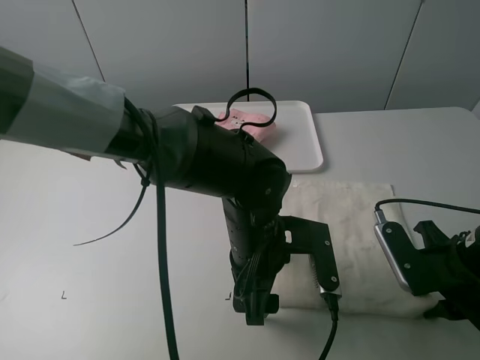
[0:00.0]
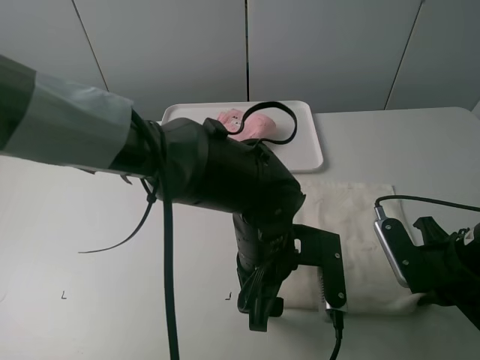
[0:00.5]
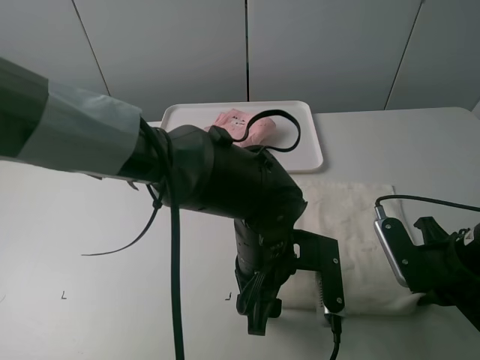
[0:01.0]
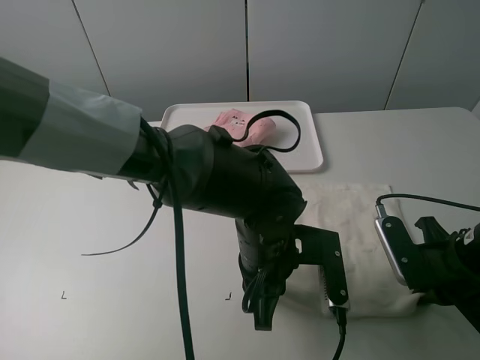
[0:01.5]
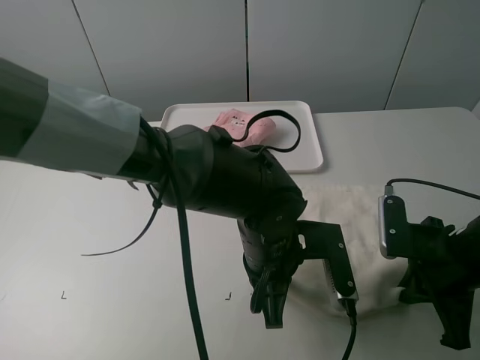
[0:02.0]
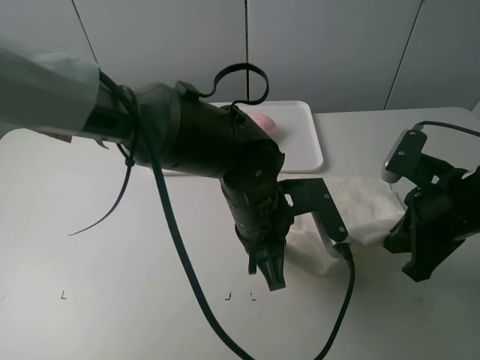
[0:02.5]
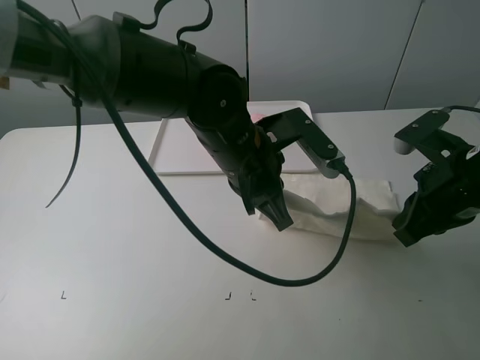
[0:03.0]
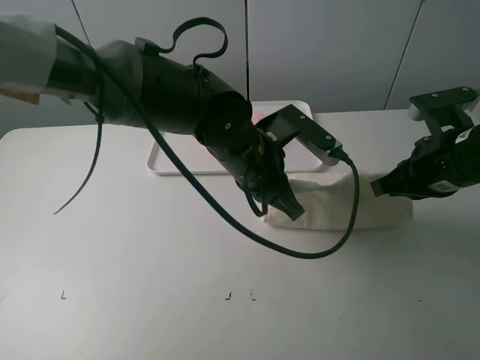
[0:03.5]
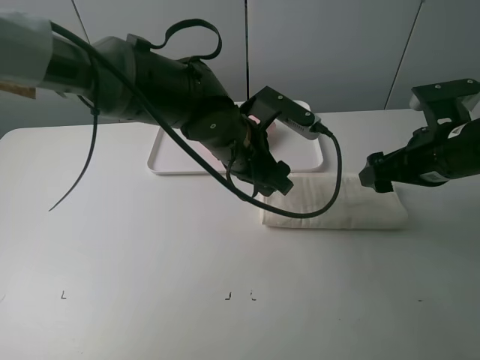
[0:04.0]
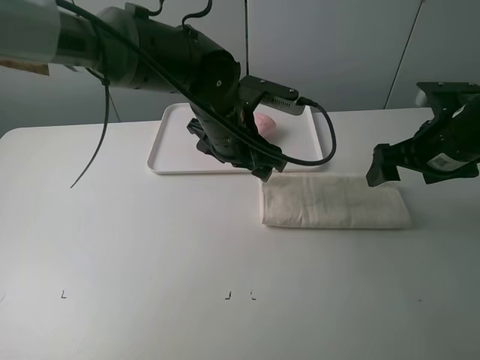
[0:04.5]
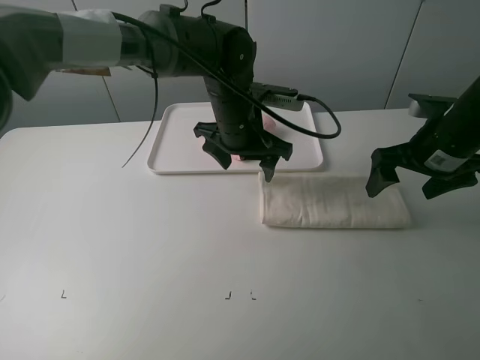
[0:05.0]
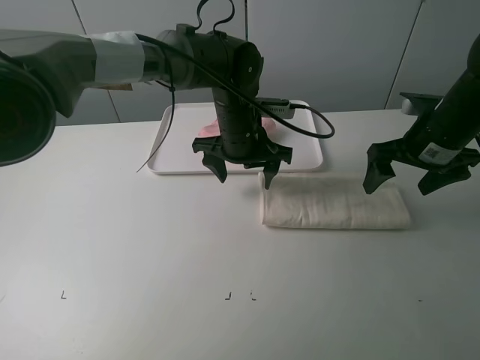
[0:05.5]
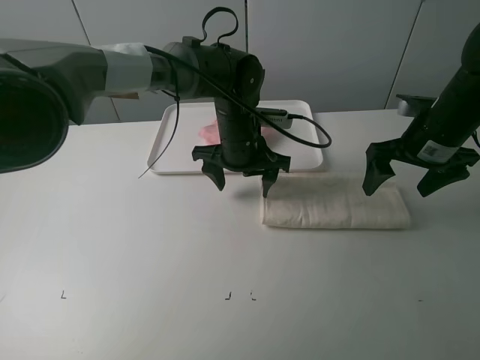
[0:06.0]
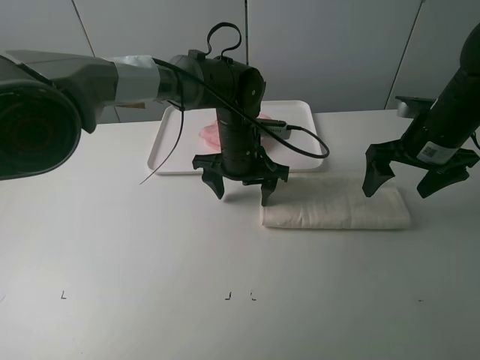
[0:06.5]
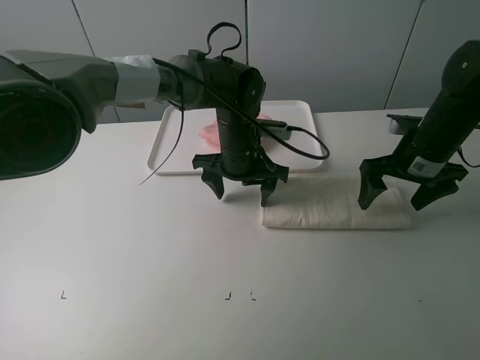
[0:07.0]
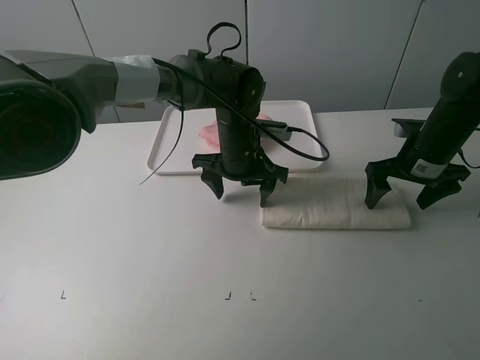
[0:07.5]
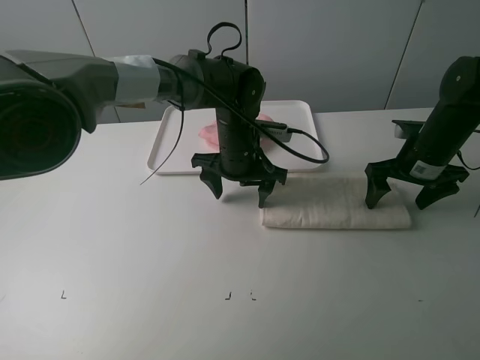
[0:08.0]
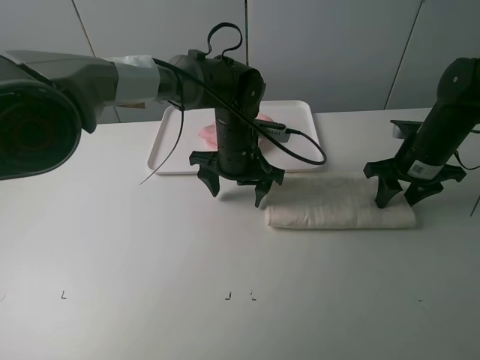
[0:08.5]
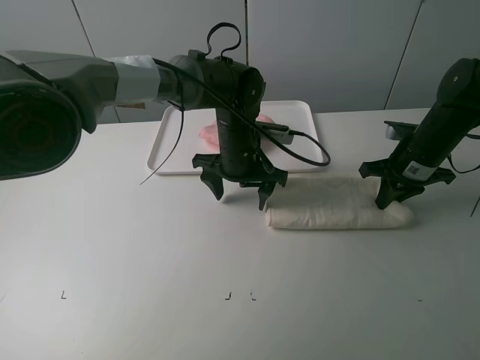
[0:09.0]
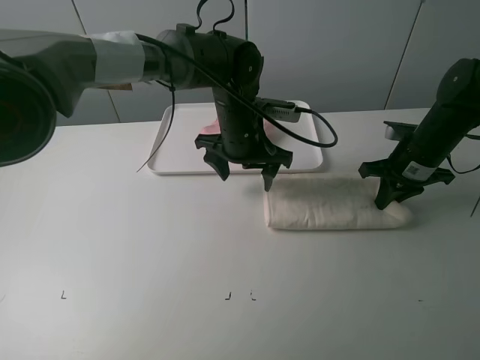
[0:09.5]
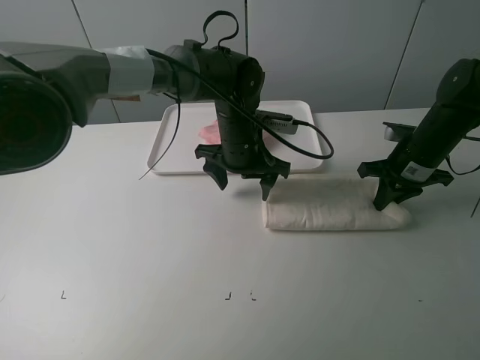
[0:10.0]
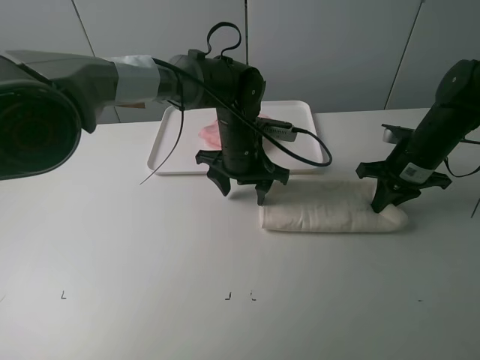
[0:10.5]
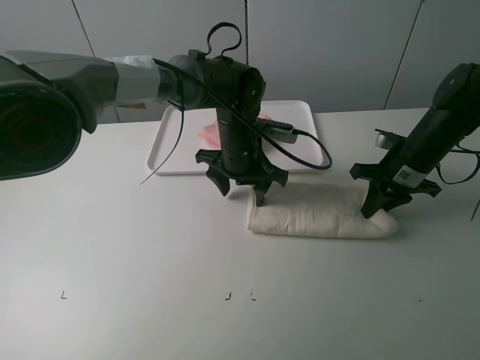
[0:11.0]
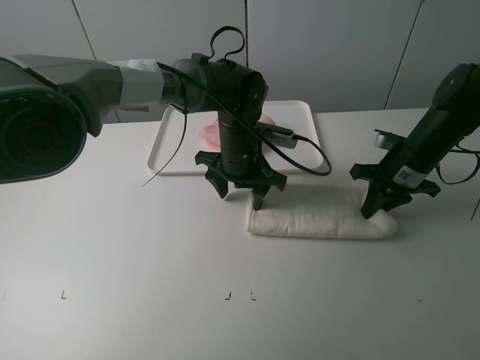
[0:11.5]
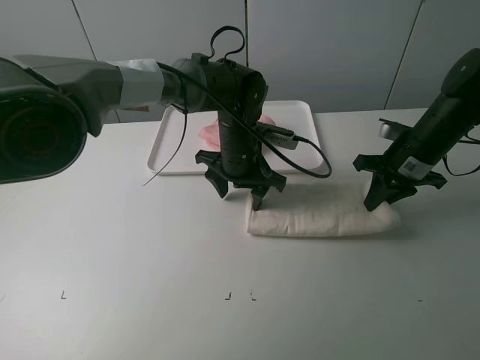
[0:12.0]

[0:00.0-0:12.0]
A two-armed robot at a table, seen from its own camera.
Task of the whole recording: fold one of the towels by two grippers and place it on the tray,then fold another towel by two grippers and place it on the folded towel.
Step, 0:02.0 to 0:04.0: Fold the white towel upwards with the left gripper.
Step, 0:04.5 to 0:06.0: Press the white towel with the left gripper.
Step, 0:06.5 to 0:08.5: Grasp the white towel with the right gripper.
0:00.0 to 0:02.0: The left gripper closes up.
0:02.0 to 0:04.0: Both grippers travel together forward and upward, about 10 cm. The right gripper opens up. The left gripper opens up.
0:04.0 to 0:06.0: The grippers both shift forward by some 5 cm.
0:06.0 to 0:08.0: The right gripper heads downward, covering some 5 cm.
0:08.0 to 0:10.0: The right gripper closes up.
0:10.0 to 0:12.0: The grippers make only small movements.

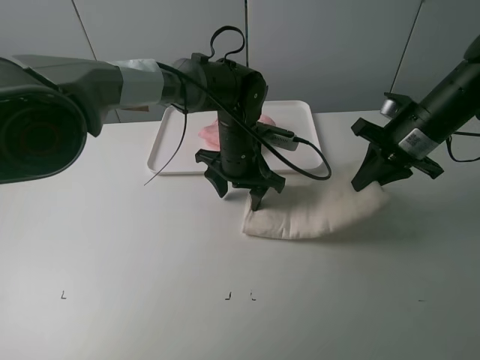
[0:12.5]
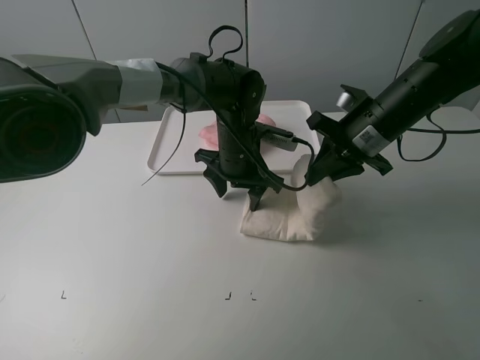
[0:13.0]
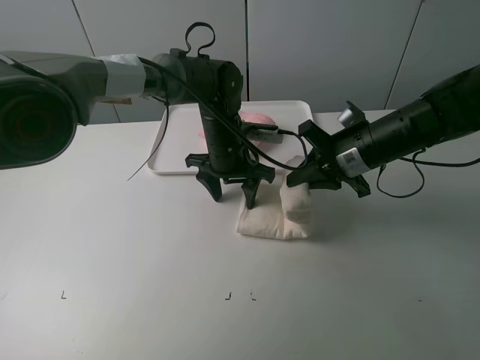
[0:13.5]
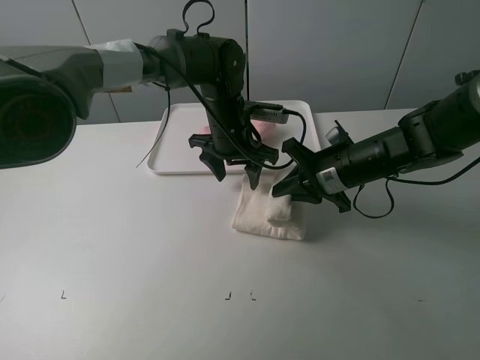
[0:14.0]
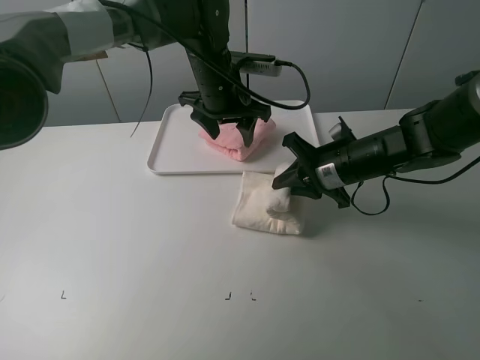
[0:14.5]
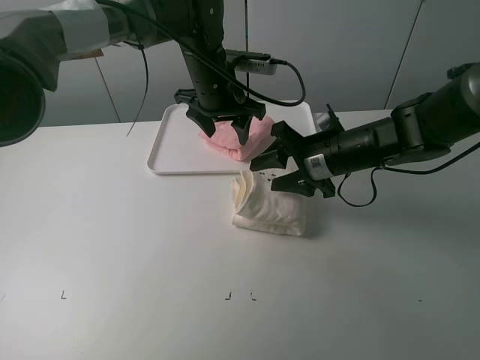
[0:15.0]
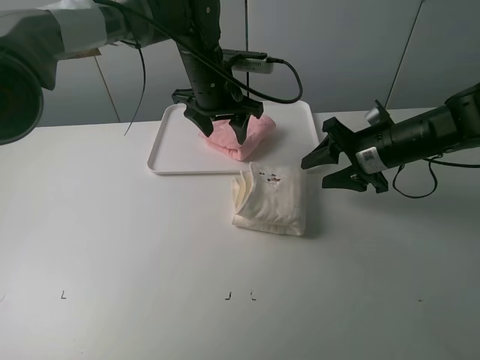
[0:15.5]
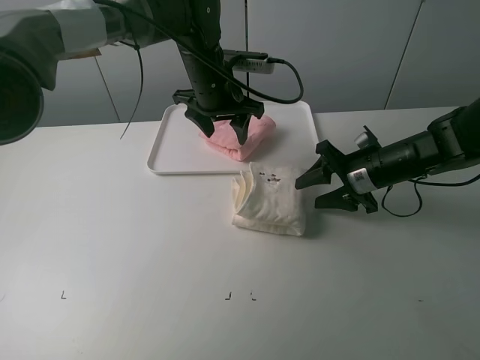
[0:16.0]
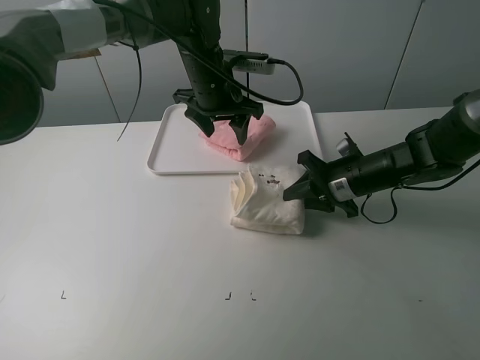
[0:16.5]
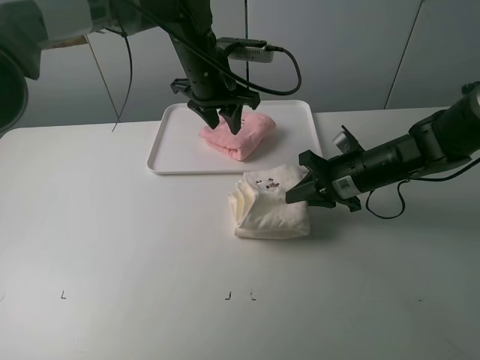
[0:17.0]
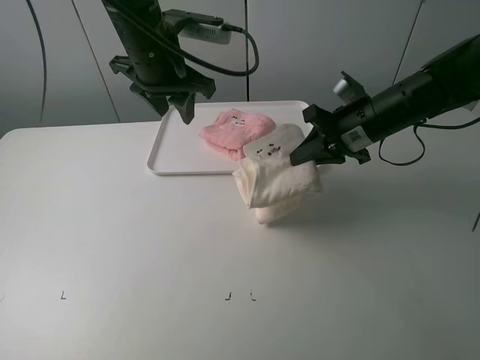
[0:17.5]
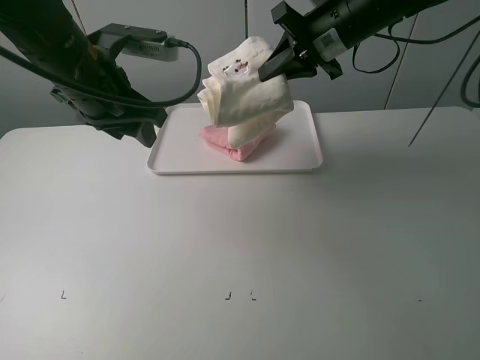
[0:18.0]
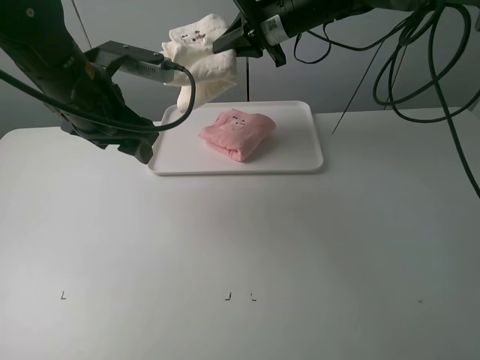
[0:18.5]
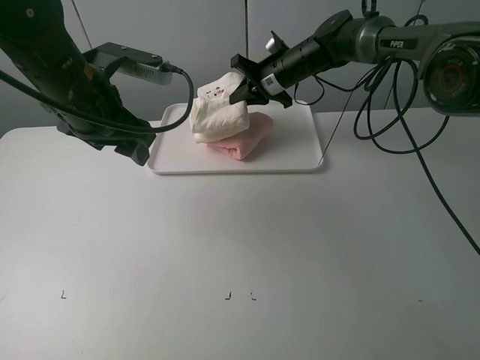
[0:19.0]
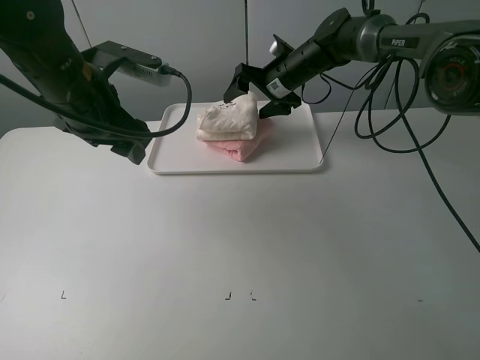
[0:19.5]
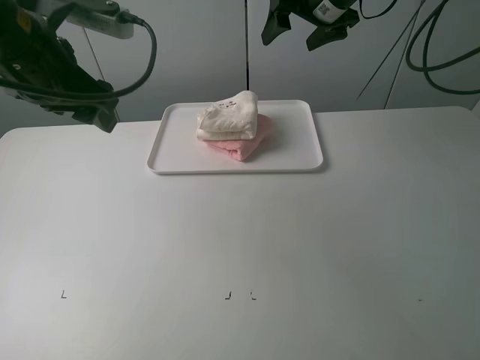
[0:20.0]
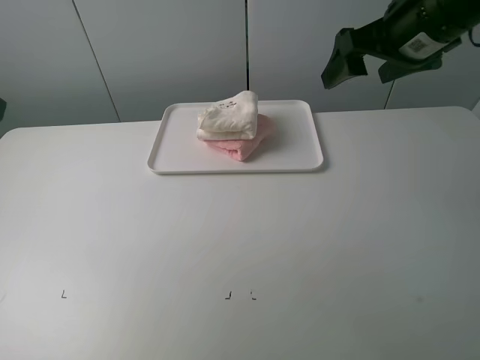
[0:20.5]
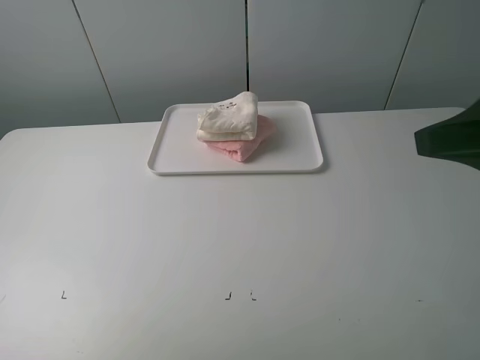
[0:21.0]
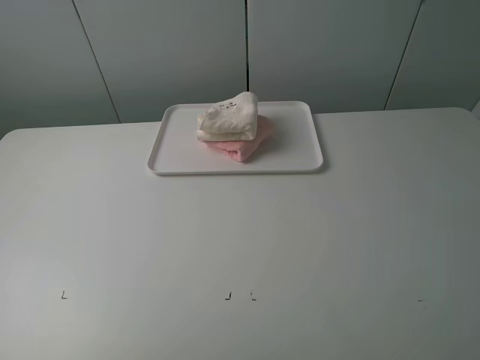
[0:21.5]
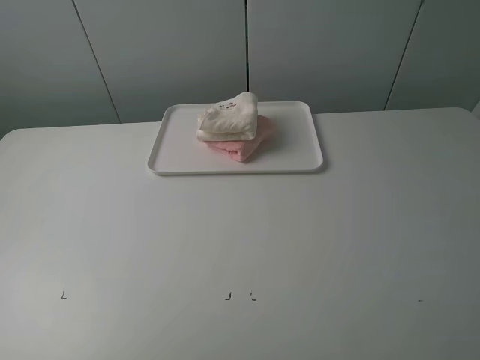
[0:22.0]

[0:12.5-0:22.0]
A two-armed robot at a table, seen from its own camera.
Task of the whole recording: fold one of the towels by two grippers and place it on the tray,then fold another towel by two grippers and place it on the folded towel.
Step, 0:12.5 to 0:15.0: Fold the white towel from right to left with right gripper.
Step, 0:15.5 to 0:16.5: Grasp the white towel with the right gripper.
Step, 0:17.0 to 0:19.5: Place the pink towel on the white towel with the right gripper.
0:12.5 to 0:14.5: The left gripper travels upward and forward by some 10 cm. Meanwhile the right gripper is displaced to the left and downward by roughly 10 cm.
0:14.5 to 0:16.5: The right gripper opens and closes again.
0:16.5 to 0:18.0: The left gripper is displaced to the left, backward and upward by roughly 20 cm; the right gripper heads upward and forward, covering roughly 20 cm.
0:18.0 to 0:20.0: The right gripper goes about 5 cm forward, travels downward and back again, approximately 10 cm each way, and opens its fingers; the left gripper shifts roughly 5 cm upward.
0:20.0 to 0:22.0: The right gripper goes roughly 50 cm backward. The left gripper moves backward and to the left, roughly 30 cm.

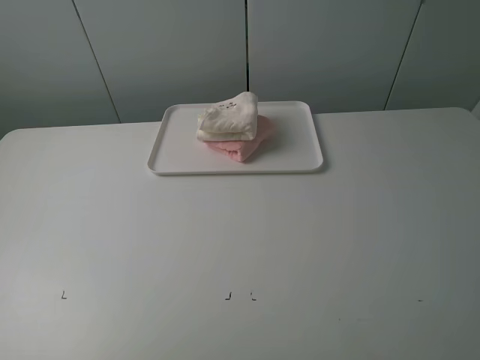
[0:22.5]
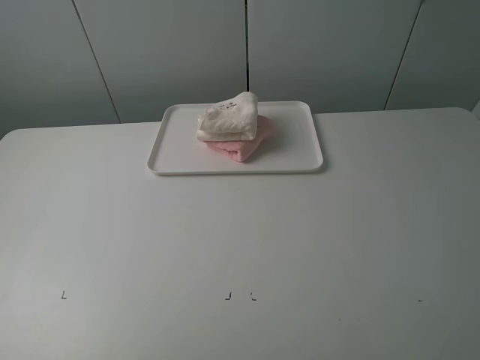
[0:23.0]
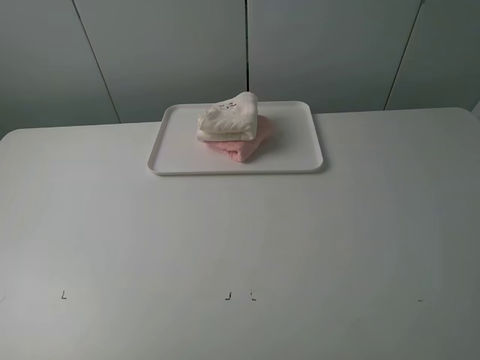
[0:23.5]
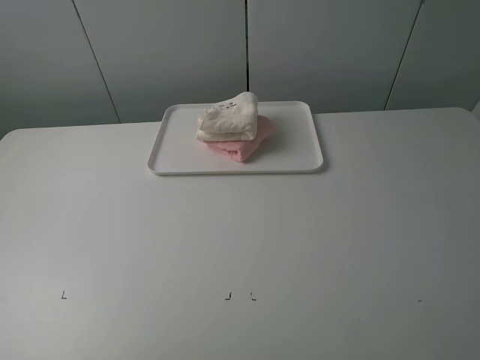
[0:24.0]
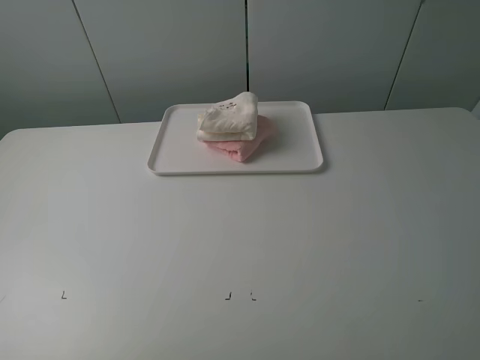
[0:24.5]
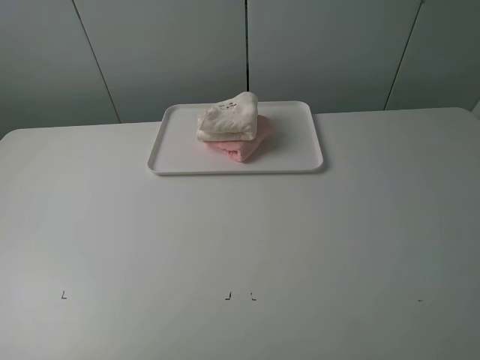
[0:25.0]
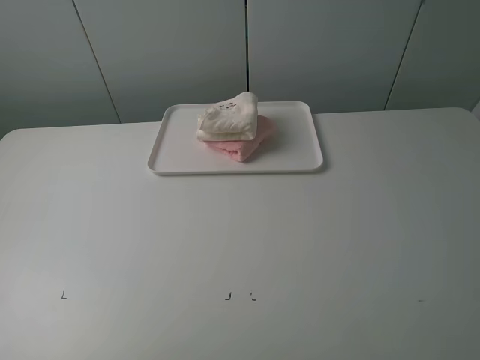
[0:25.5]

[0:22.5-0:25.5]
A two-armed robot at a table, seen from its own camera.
Task of the whole recording: fold one of the towels by two grippers and place it on the tray,then fold another towel by two grippers and place it on the folded towel.
0:24.0 to 0:25.5: Both grippers stay about where they are.
